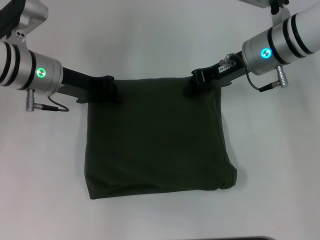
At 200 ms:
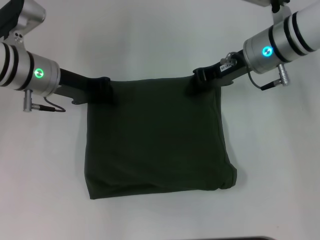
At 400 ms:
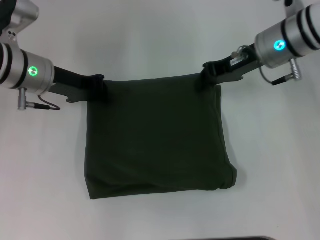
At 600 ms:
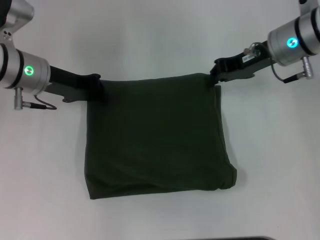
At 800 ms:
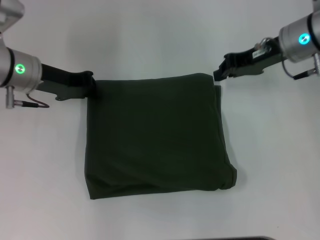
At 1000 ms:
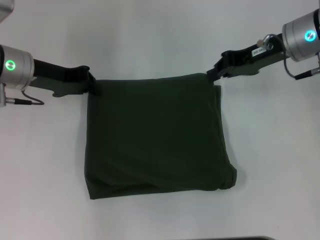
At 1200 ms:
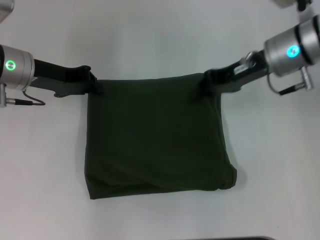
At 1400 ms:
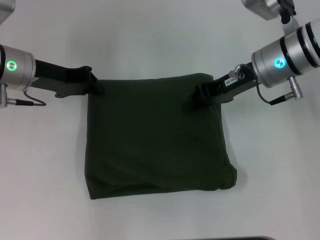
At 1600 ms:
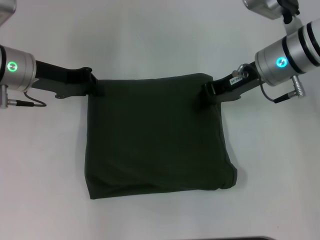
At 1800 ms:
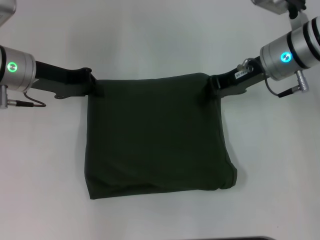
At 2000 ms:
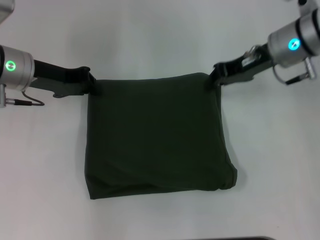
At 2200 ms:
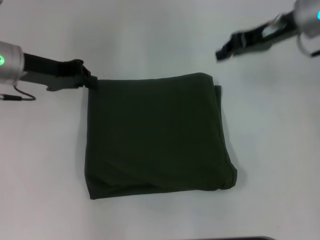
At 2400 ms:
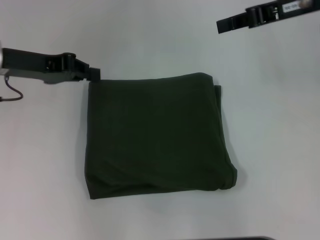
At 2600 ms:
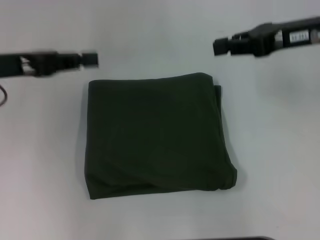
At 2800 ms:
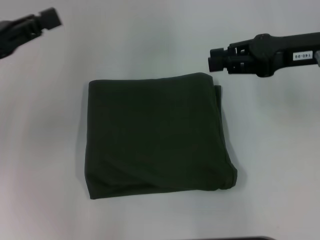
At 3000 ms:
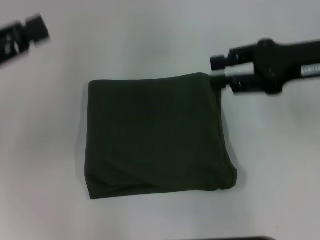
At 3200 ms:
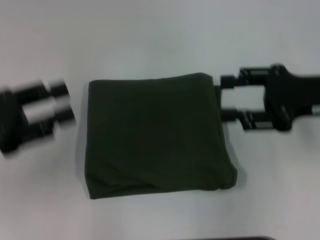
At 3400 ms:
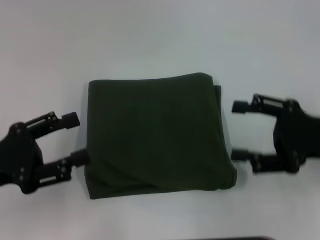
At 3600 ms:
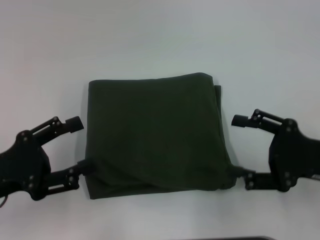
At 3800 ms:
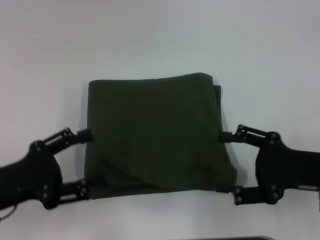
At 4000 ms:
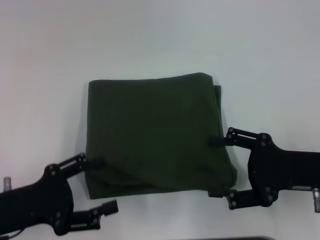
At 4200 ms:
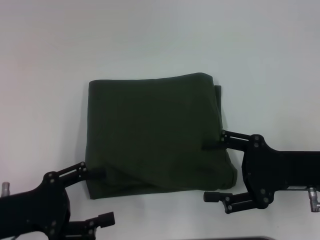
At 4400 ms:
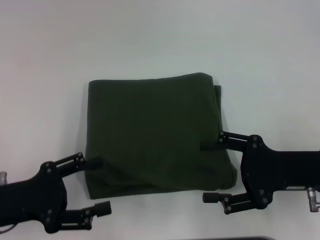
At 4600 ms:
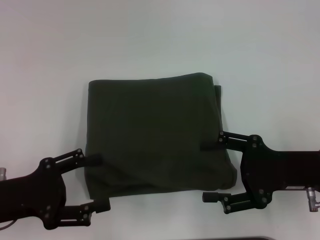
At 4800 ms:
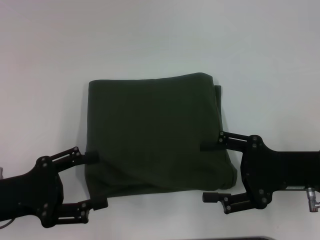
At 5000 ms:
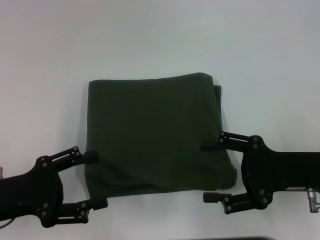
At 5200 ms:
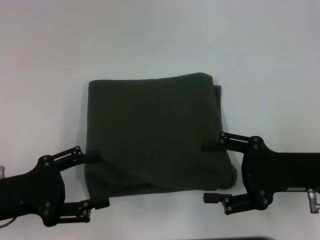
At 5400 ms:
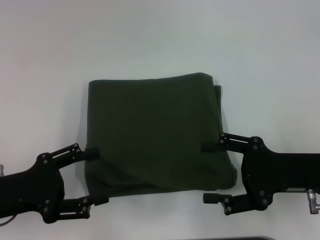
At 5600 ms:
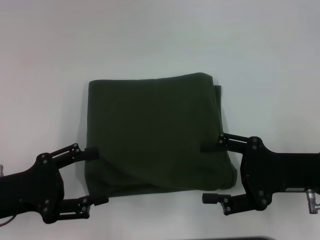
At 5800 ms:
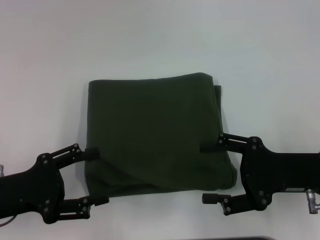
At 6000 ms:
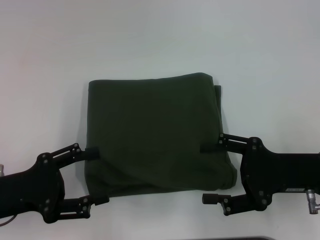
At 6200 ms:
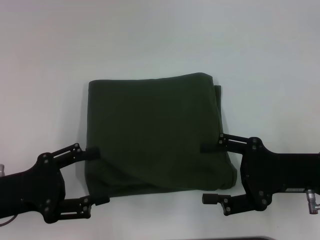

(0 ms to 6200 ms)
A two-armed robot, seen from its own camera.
0 ms - 1600 ms: The grippers stay close to where they were, moving slightly.
1600 ms - 3200 ms: The right gripper moves backward and to the right, about 15 cm, and opens up. Meanwhile the left gripper heads backward and to the left, covering some 15 cm, and opens up.
3200 ms - 4600 ms: The left gripper is displaced downward by about 5 cm, and opens its fingers; the right gripper is displaced downward and backward by approximately 10 cm, and opens.
4600 ms - 6200 ms: Neither gripper changes place.

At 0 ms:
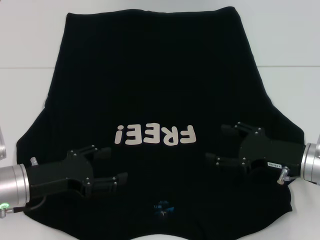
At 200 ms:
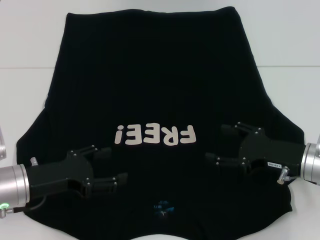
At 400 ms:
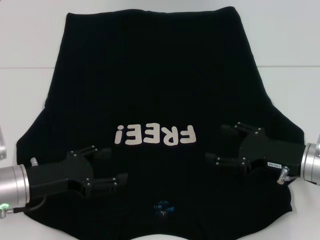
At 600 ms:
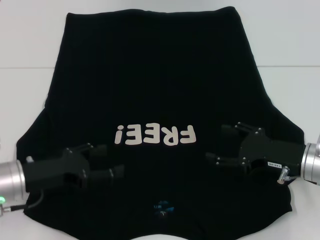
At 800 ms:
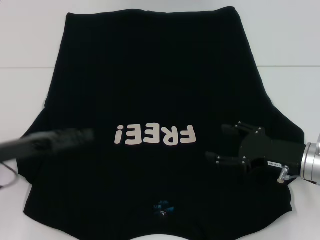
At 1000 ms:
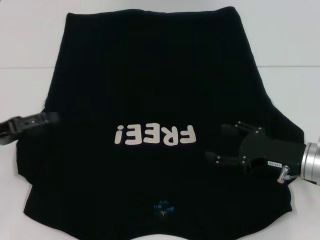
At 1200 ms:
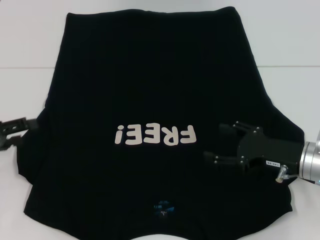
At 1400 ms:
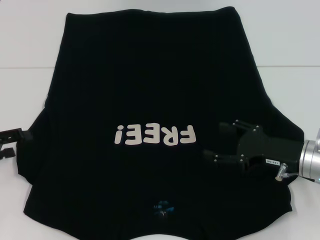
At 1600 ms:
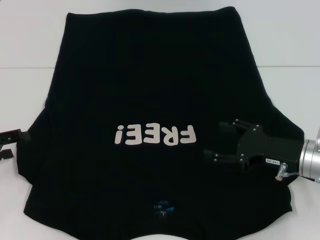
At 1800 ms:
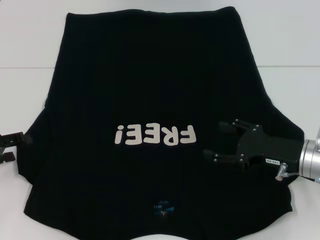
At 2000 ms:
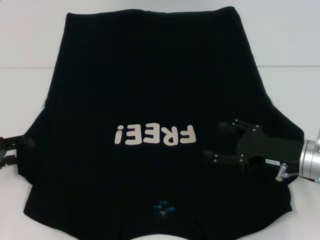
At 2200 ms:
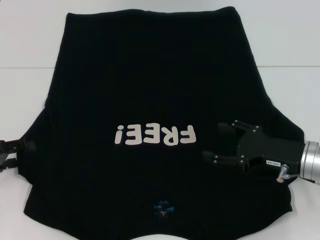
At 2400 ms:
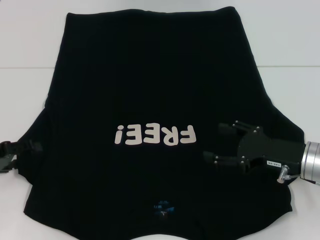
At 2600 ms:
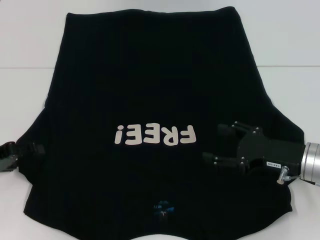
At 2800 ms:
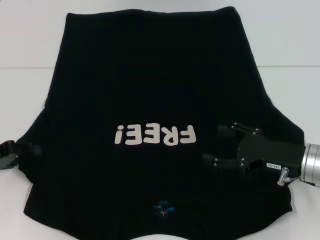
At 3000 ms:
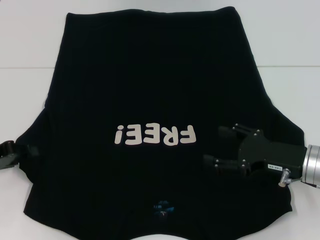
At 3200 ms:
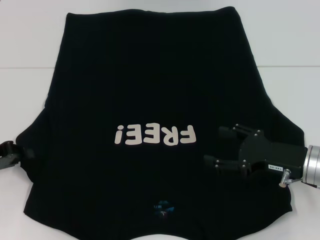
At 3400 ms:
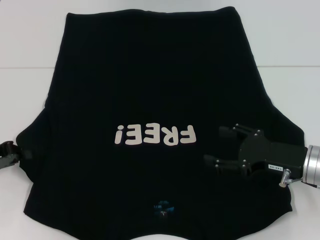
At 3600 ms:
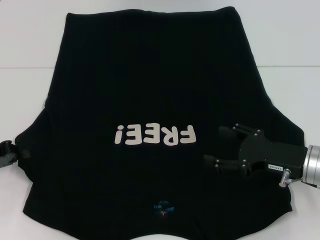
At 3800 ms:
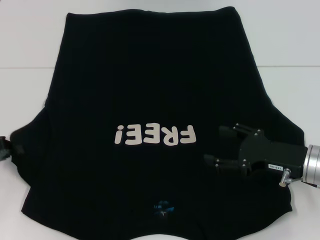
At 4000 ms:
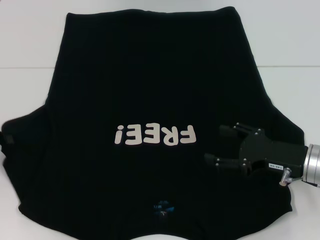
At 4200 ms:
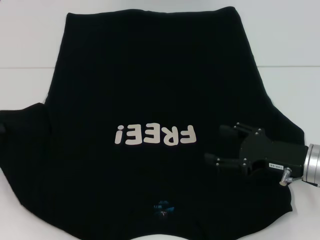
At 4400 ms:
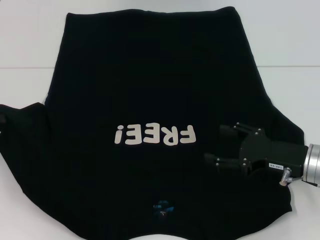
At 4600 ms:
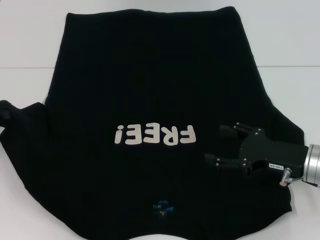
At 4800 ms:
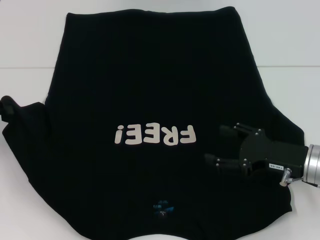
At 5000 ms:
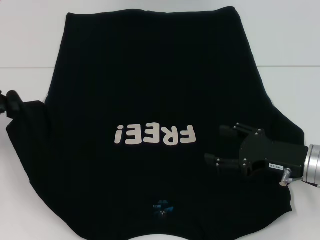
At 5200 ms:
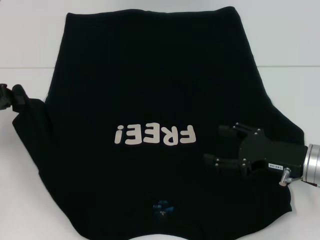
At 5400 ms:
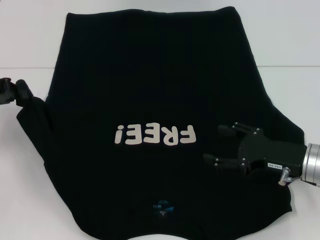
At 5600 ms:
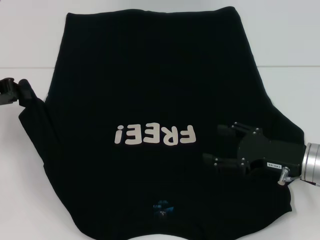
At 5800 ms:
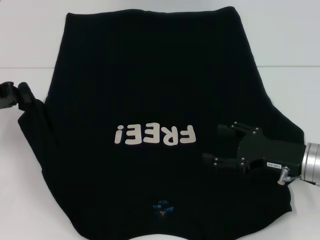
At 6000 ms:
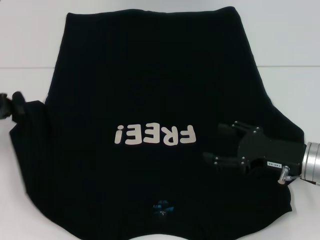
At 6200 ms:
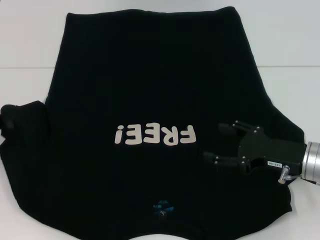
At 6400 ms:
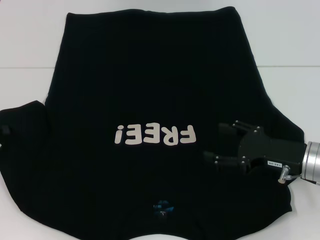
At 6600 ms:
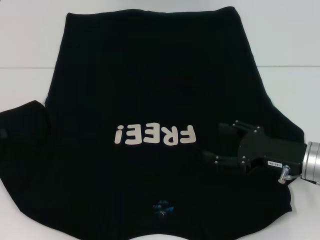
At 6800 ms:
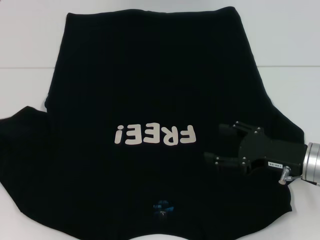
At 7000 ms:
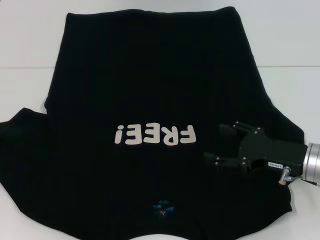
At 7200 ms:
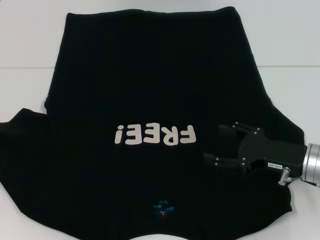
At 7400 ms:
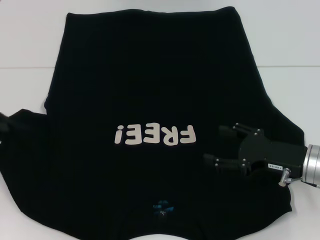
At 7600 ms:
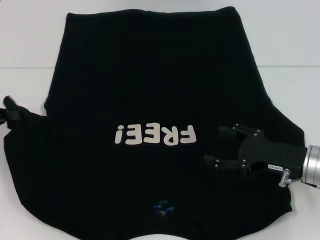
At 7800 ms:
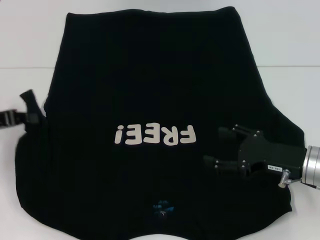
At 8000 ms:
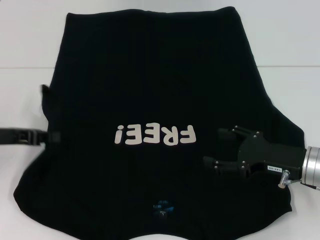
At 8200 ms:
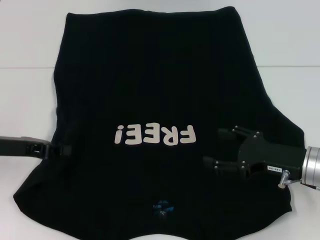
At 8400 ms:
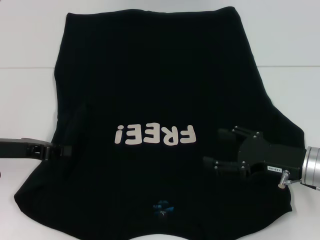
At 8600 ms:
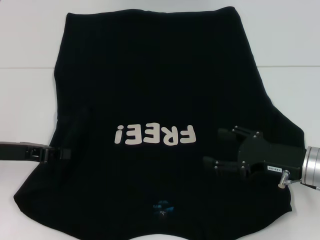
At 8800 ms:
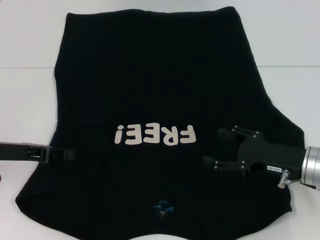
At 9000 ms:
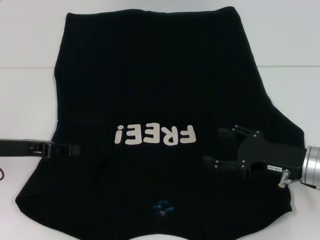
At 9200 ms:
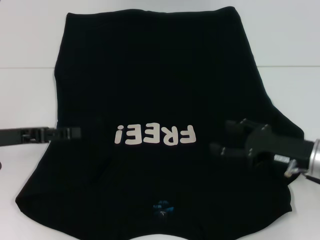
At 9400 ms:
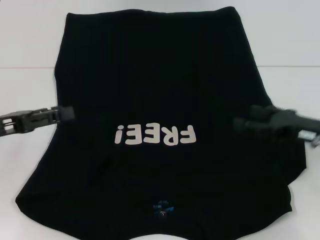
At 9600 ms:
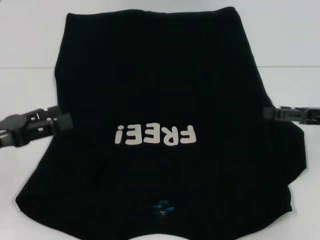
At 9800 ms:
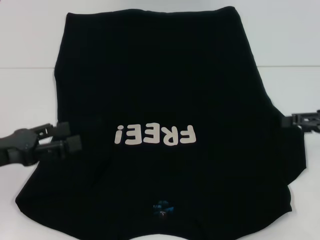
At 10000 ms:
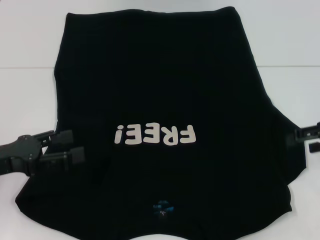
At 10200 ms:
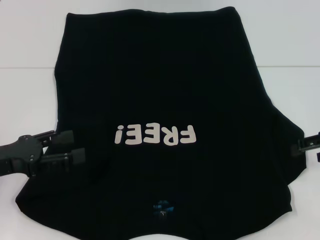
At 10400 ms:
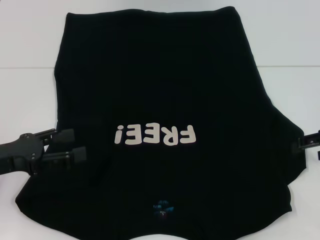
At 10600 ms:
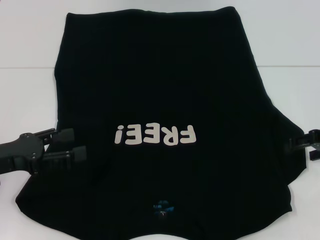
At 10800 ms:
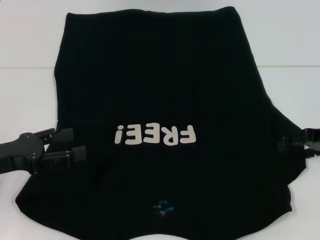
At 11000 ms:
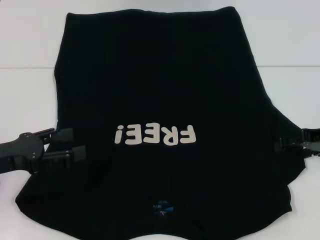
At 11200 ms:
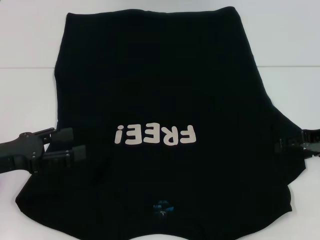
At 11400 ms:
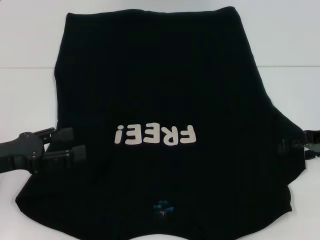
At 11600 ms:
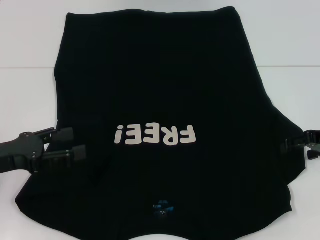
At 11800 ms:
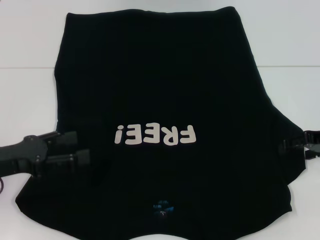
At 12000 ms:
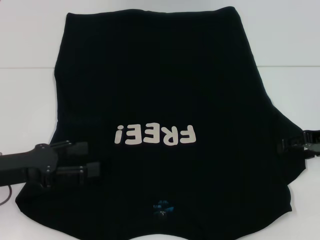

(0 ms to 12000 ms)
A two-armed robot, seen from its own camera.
Step, 0 ms - 9000 ms: Fold the bottom left sleeve with your left hand.
0 ms - 1600 ms: The left gripper travels to the left by about 10 cm.
1600 ms - 3000 ms: The grippers move only a little.
3000 ms - 4400 ms: The left gripper shifts by some 5 cm, and closes its fingers.
4400 ms - 6000 ms: The grippers make only small movements.
7600 ms - 9000 ms: The left gripper is displaced to the right by about 5 cm.
9000 ms - 10400 ms: The right gripper goes roughly 15 cm to the right, upward and forward. Meanwhile the left gripper goes about 5 cm backward, and opens.
10400 ms - 12000 ms: The grippers stay close to where they were, moving slightly.

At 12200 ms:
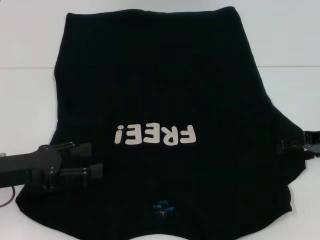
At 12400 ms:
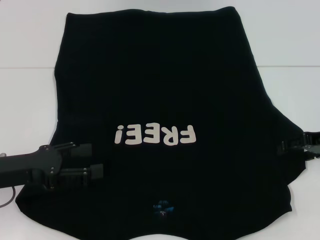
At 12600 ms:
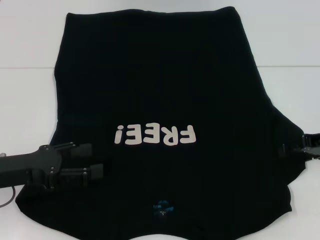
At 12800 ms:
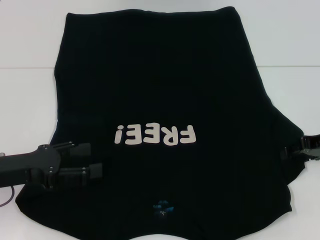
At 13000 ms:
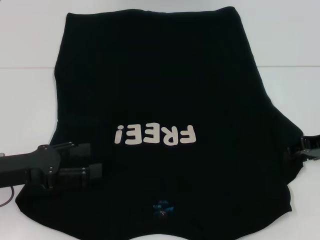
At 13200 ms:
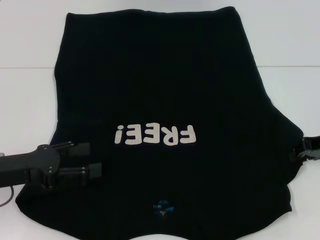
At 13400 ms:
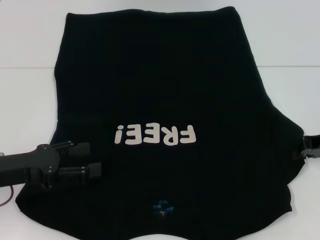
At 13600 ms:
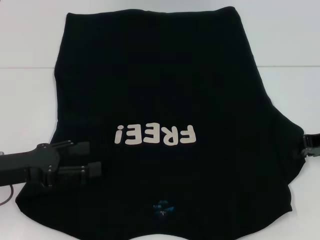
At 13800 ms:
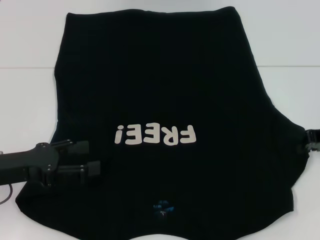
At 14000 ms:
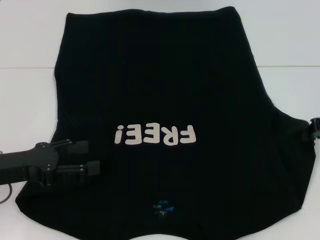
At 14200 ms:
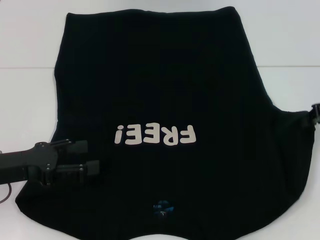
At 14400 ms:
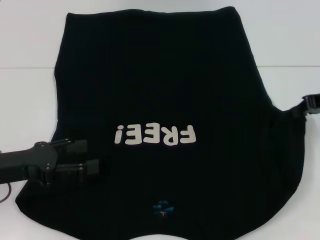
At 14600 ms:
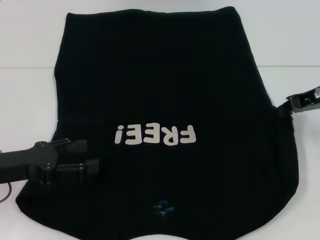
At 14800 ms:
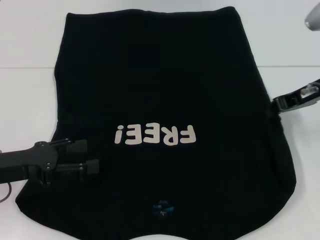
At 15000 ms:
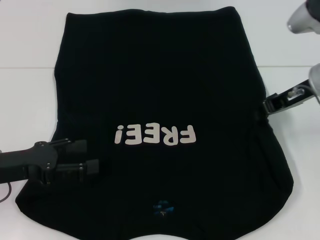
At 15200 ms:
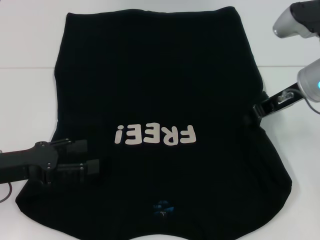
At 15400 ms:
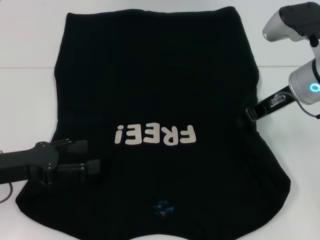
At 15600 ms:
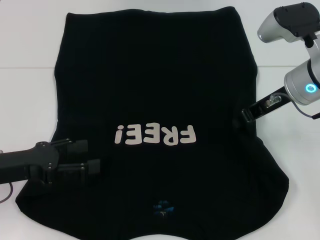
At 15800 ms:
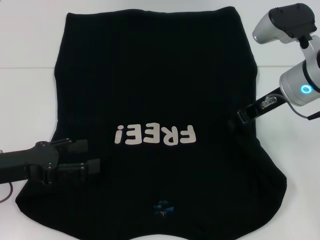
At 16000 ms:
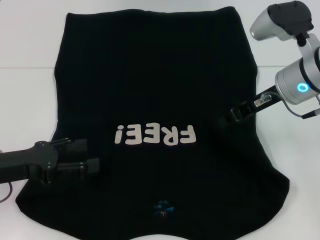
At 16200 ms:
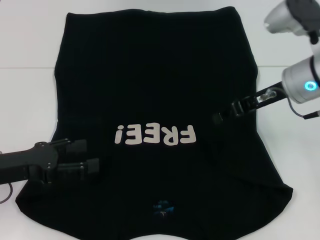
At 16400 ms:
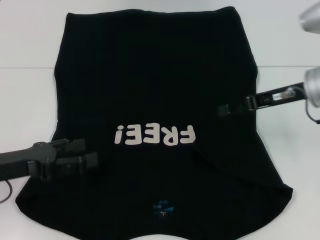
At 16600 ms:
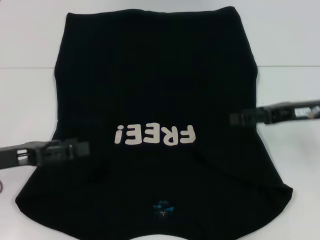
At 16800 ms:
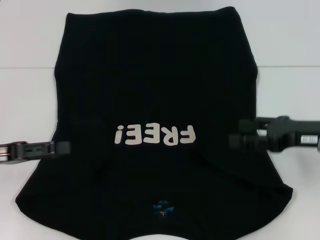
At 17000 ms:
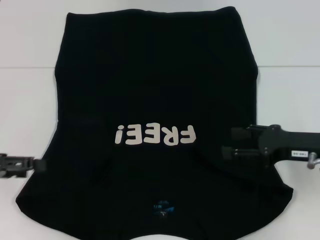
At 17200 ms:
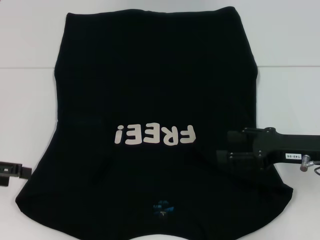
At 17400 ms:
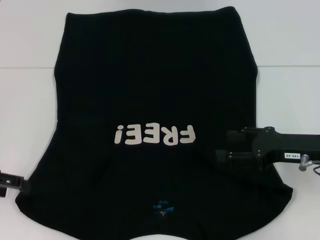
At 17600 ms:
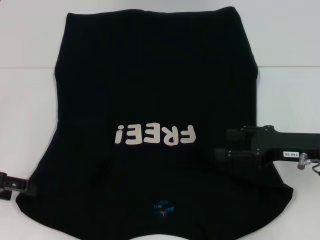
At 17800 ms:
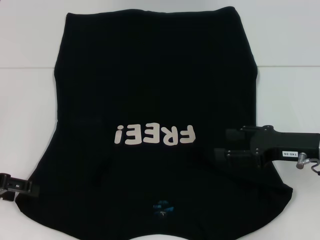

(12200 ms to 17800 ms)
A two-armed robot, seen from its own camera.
Step, 12200 ms - 16200 ms: Fold the bottom right sleeve with your right hand.
13600 ms - 15000 ms: The right gripper is displaced to the left and upward by about 10 cm.
16400 ms - 17800 ms: The left gripper heads to the left, covering roughly 5 cm, while the right gripper travels backward and downward by approximately 10 cm, and opens.
